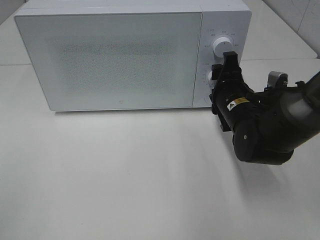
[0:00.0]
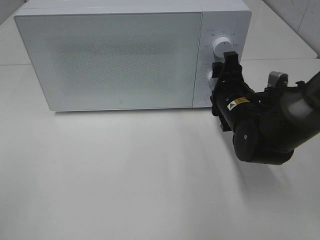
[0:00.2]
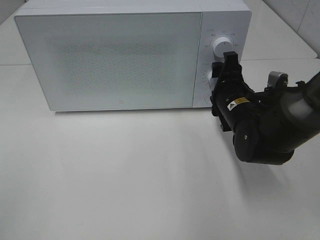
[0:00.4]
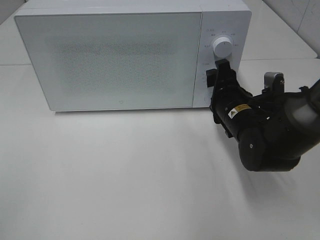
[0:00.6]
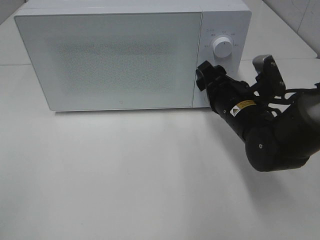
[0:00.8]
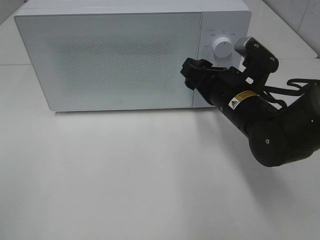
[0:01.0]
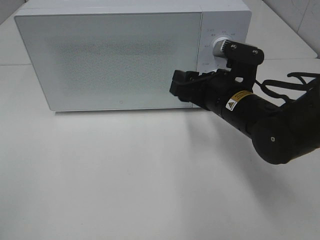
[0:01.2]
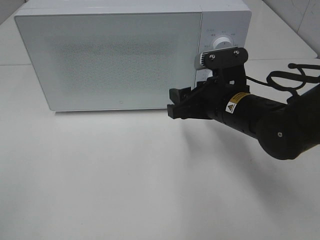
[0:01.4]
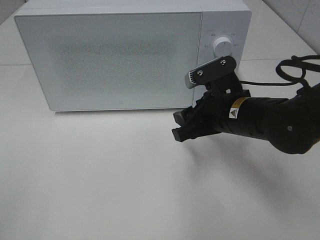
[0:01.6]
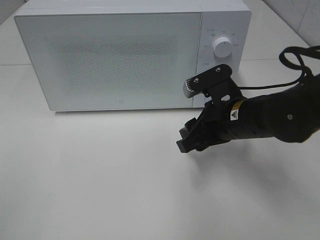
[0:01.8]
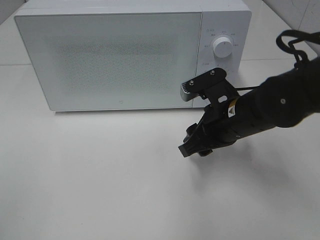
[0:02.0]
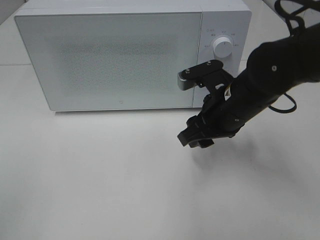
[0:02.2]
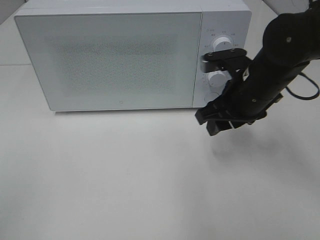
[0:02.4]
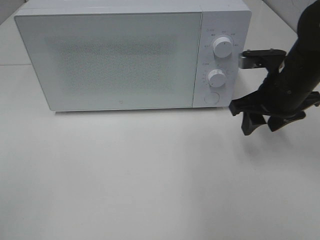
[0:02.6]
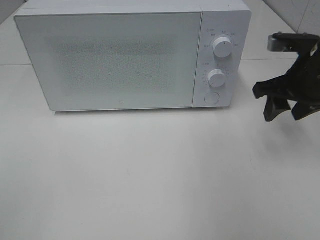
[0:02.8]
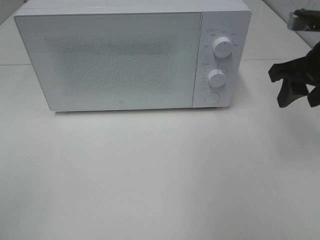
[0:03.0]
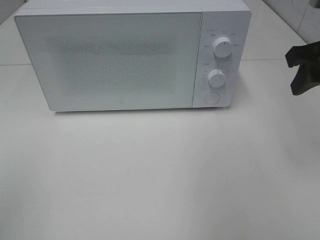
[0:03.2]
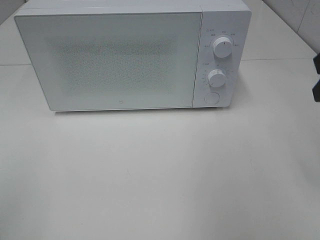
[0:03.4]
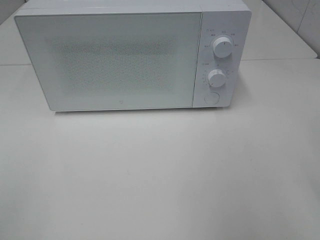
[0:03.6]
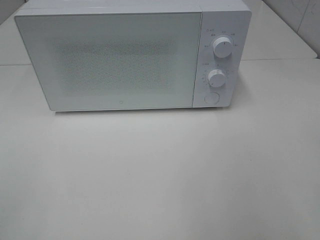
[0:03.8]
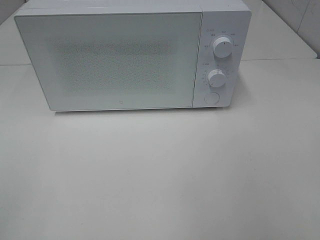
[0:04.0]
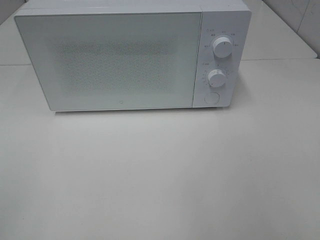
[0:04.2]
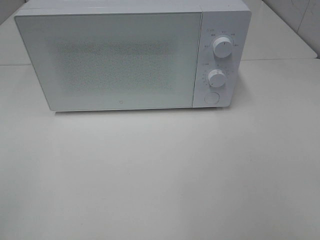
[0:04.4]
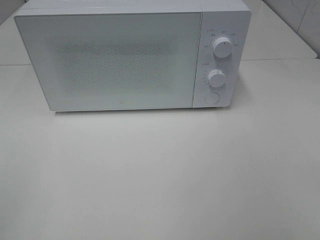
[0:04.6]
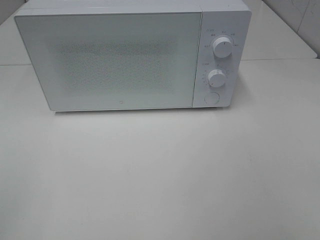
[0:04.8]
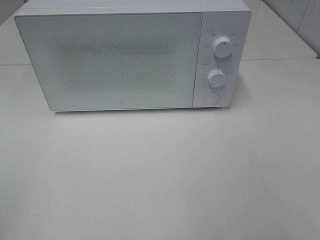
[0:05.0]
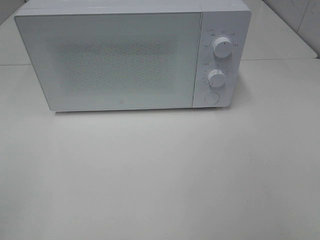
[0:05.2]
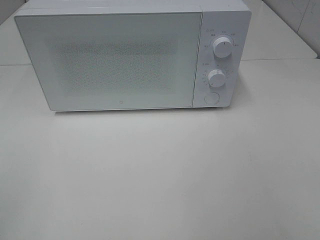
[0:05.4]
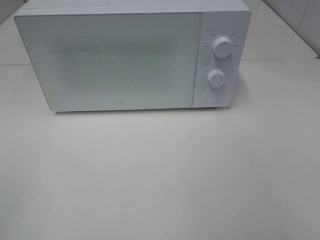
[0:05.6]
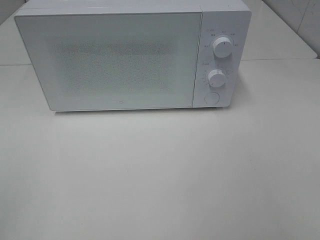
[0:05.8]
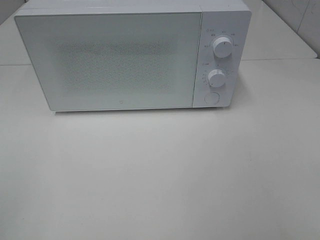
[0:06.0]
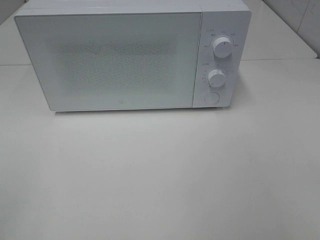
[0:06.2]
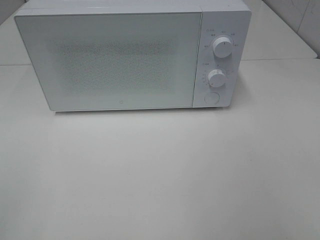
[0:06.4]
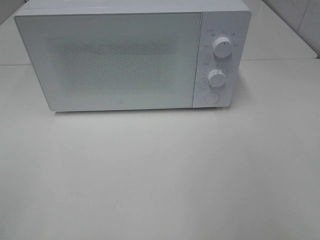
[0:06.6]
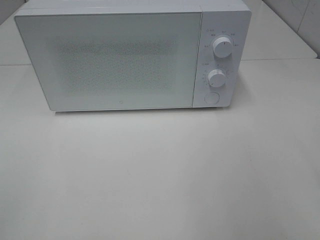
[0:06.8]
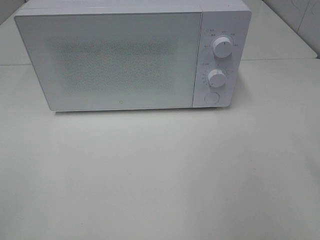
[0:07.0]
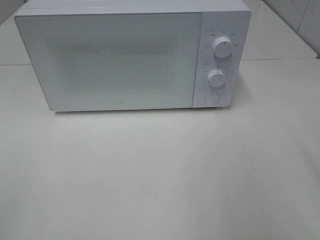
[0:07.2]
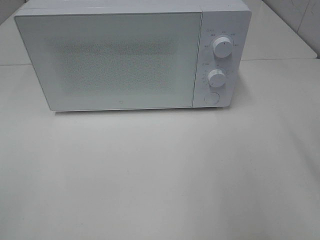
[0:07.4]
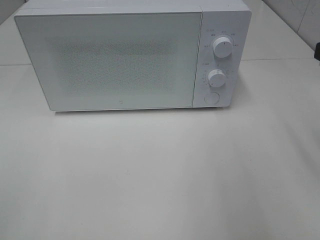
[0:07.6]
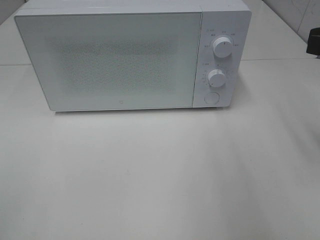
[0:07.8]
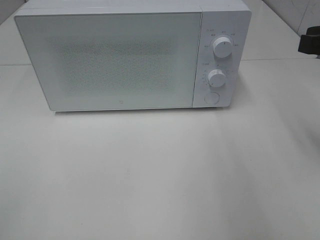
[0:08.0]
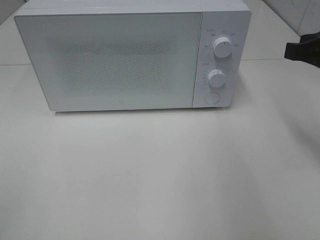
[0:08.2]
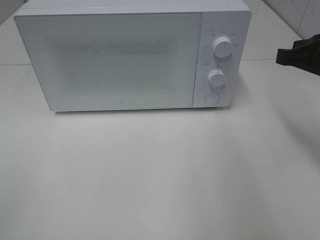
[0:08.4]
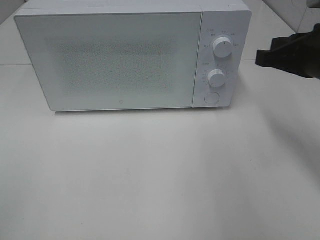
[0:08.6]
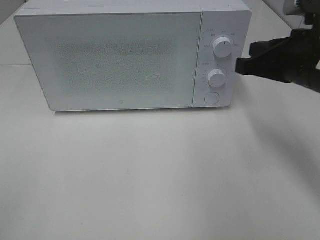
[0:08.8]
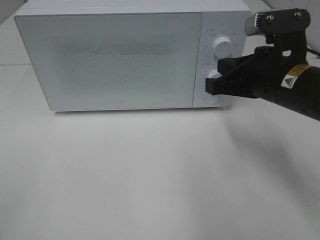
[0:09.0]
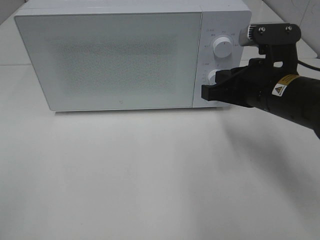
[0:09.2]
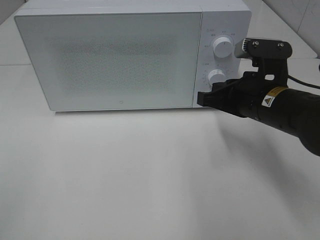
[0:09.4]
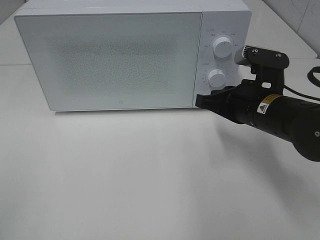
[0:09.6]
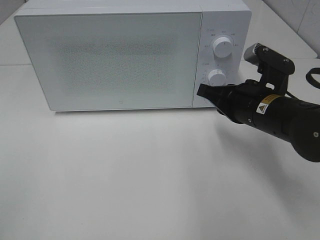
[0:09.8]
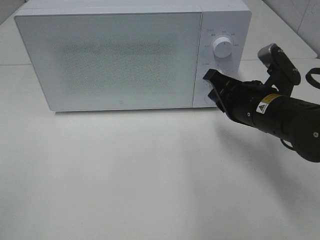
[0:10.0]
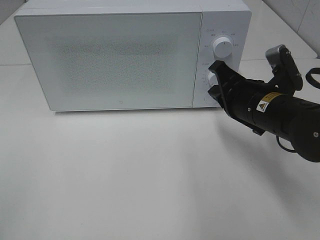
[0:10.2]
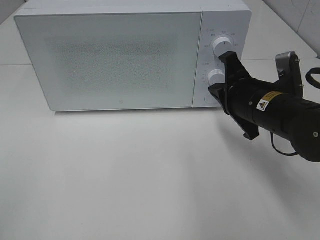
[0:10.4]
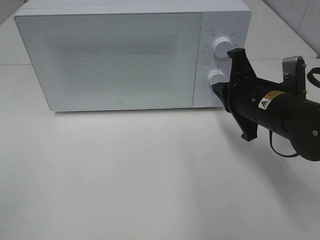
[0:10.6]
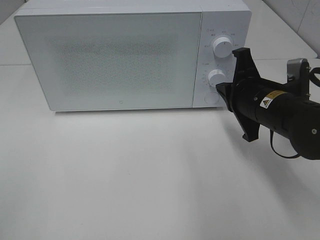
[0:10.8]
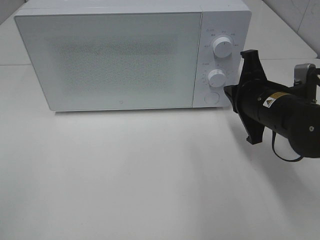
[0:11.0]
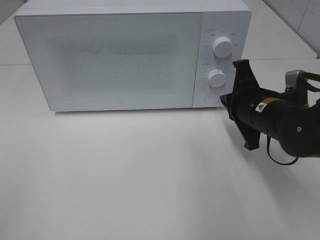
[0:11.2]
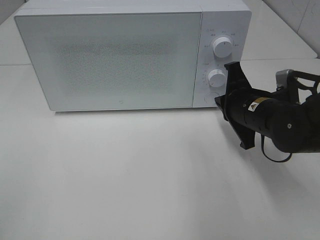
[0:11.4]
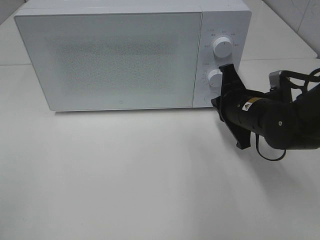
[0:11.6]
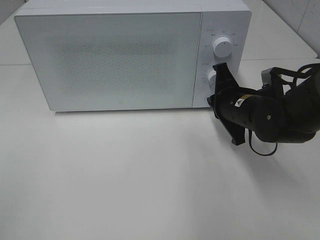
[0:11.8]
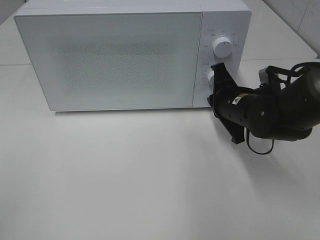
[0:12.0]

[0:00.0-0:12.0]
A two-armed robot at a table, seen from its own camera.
Task of the whole recording: Heat the burger.
0:00.0 to 0:01.6: The right gripper ends up roughly 5 cm from where it was.
0:01.6 to 0:03.0: The right gripper travels to the right and upward by about 15 cm.
0:03.0 to 0:04.4: The right gripper moves backward, roughly 25 cm.
0:07.6 to 0:09.0: The right gripper shifts about 15 cm to the left, downward and forward, and closes its fingers.
0:09.0 to 0:10.4: The right gripper heads downward, covering roughly 5 cm.
0:10.4 to 0:12.0: The right gripper travels forward by about 5 cm.

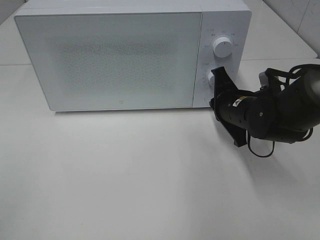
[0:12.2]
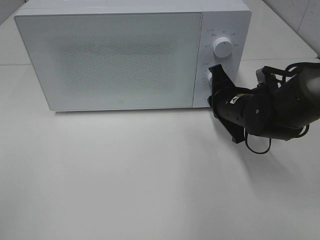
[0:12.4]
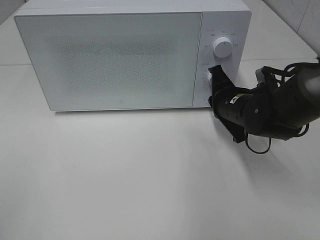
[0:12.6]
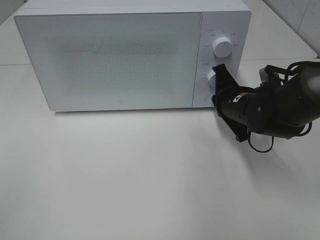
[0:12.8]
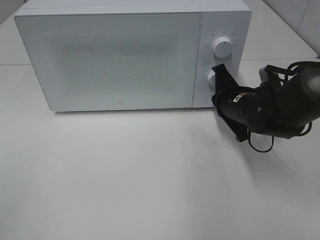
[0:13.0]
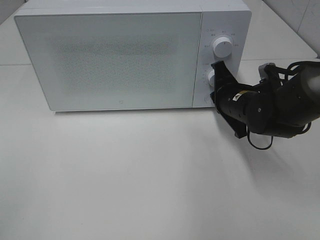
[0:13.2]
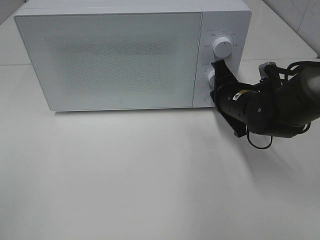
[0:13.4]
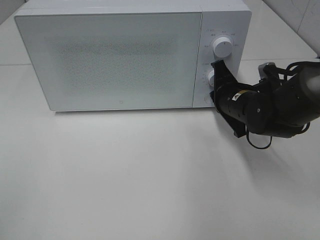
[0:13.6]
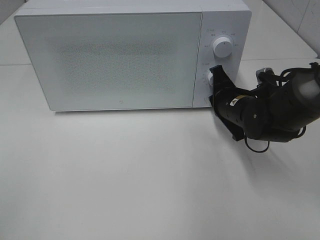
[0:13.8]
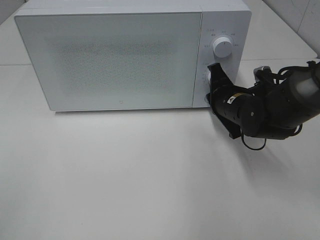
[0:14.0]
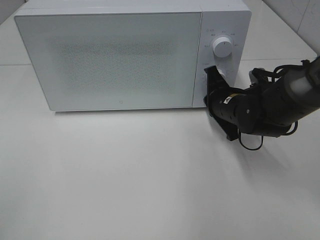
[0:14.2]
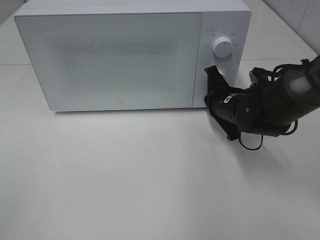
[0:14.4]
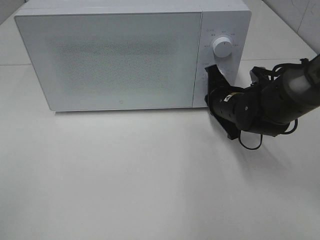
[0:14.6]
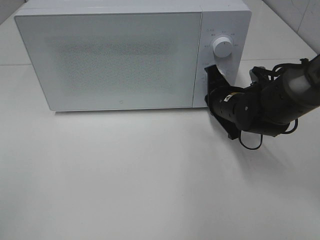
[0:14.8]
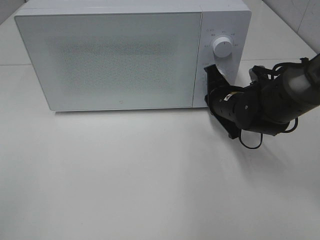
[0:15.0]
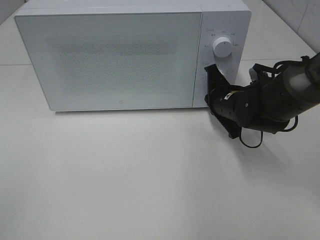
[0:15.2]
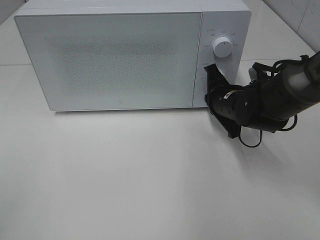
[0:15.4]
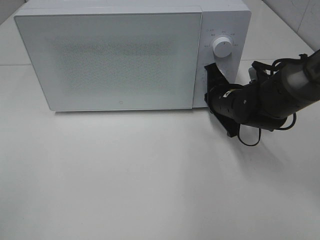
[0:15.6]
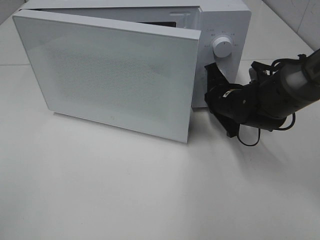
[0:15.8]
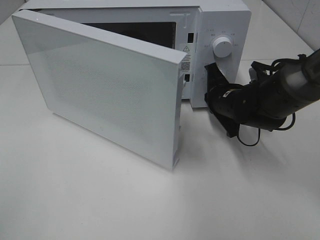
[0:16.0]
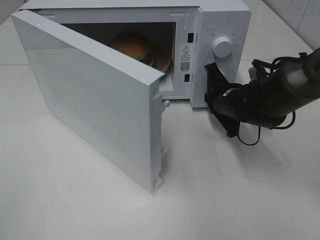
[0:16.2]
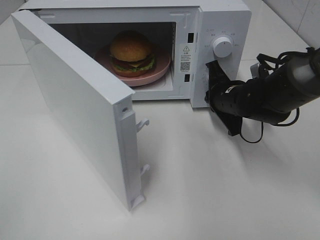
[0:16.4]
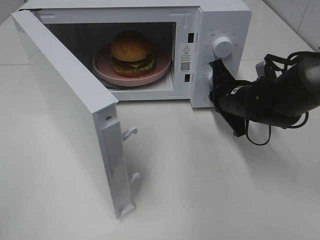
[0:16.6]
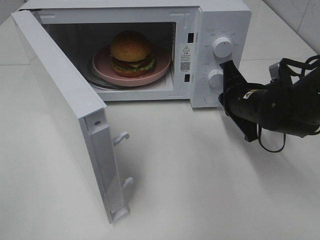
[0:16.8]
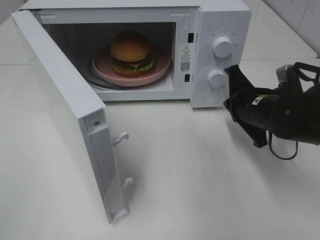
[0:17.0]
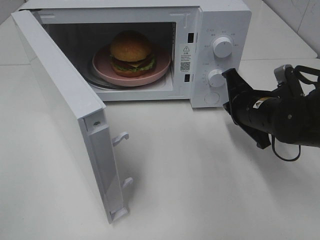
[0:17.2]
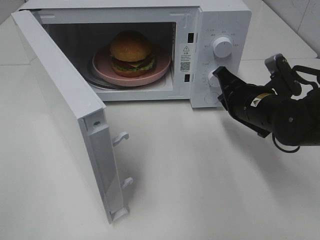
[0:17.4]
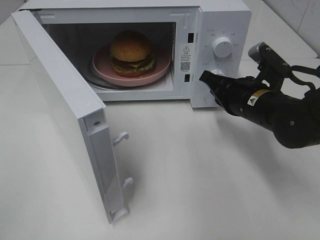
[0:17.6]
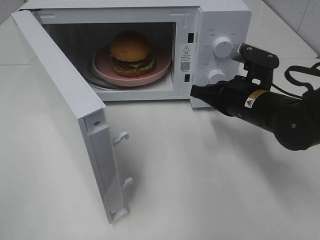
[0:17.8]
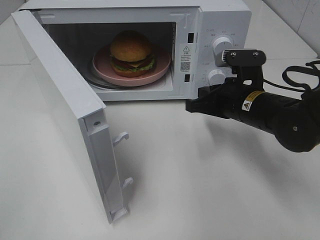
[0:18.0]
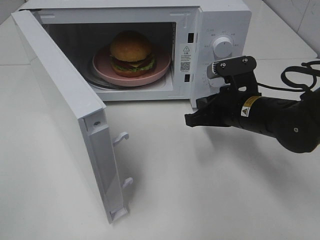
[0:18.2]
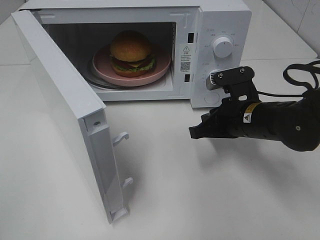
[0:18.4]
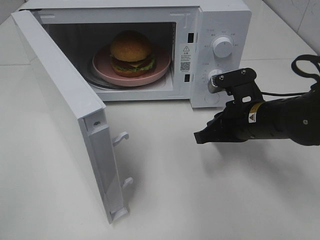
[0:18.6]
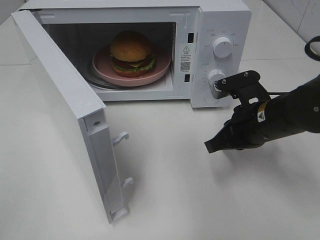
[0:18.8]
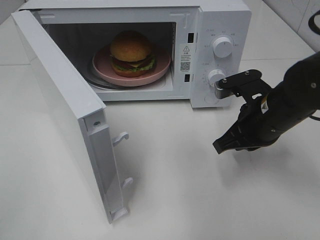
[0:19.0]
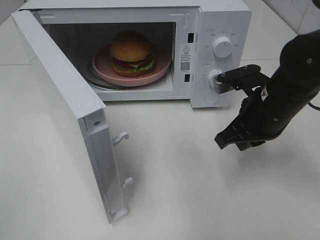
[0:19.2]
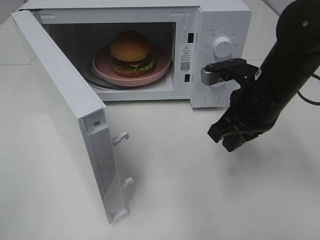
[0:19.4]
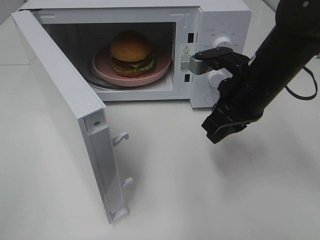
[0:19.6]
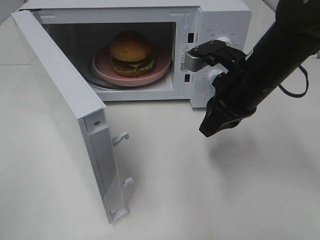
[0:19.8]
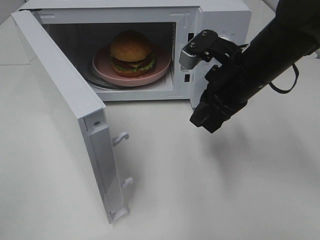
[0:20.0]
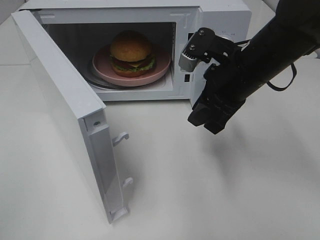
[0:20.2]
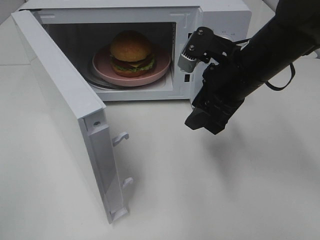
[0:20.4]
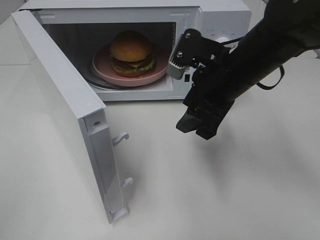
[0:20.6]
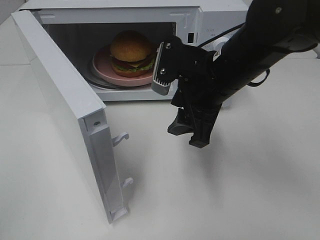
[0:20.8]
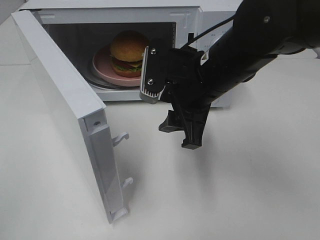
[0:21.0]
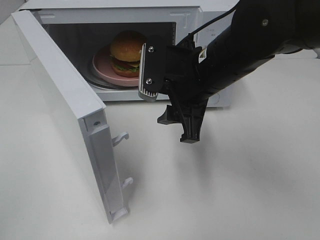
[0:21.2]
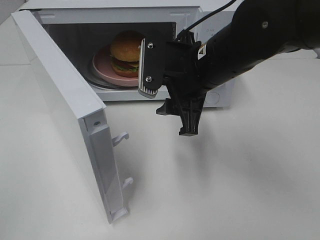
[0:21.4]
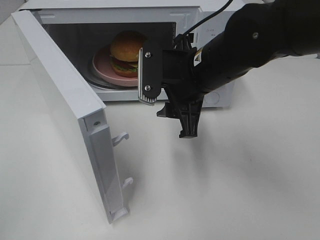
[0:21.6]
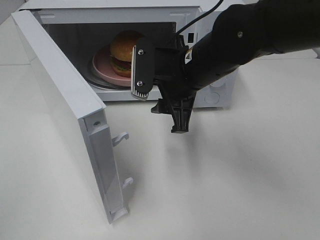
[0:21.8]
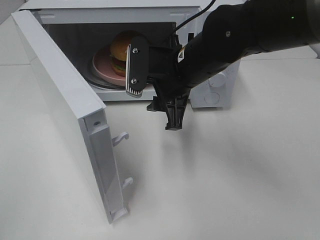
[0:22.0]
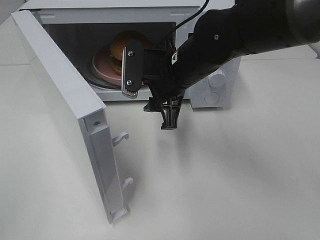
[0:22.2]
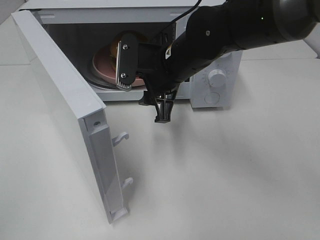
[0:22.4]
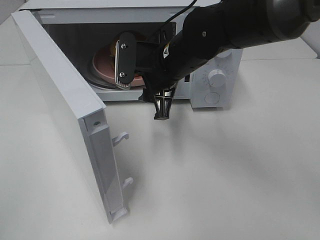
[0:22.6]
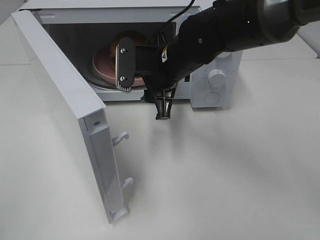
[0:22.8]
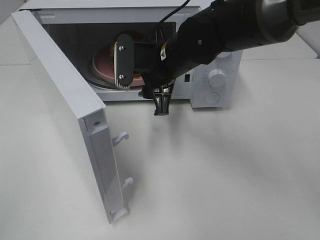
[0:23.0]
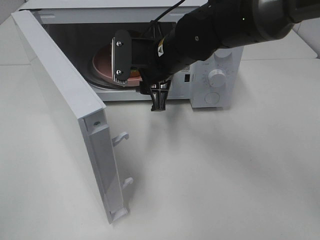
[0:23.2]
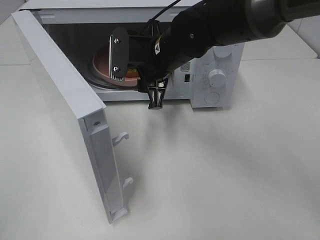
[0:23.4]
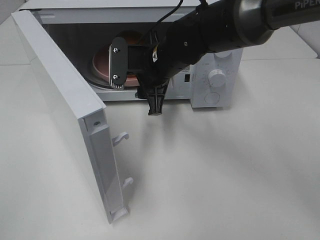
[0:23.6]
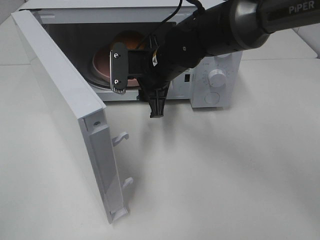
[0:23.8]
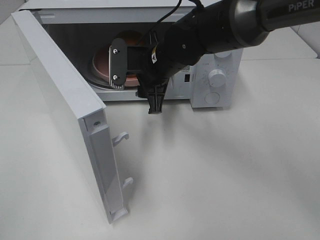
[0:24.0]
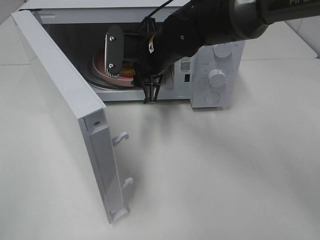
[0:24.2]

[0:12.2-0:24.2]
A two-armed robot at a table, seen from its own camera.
Task of the whole recording: Heat the burger.
Step, 0:12.2 to 0:16.6: Right hand: press the switch.
0:12.2 to 0:15.2: There are only small adjustments of the grippers.
0:16.6 to 0:18.2: The right gripper is displaced backward by approximately 5 cm.
0:18.2 to 0:19.8: The right gripper travels upward by approximately 10 cm.
0:19.8 to 0:21.2: The right gripper is displaced to the left by approximately 5 cm, and opens up.
0:21.2 to 0:22.6: The right gripper is displaced forward by about 5 cm.
0:22.6 to 0:24.2: There are only small adjustments of the grippers.
